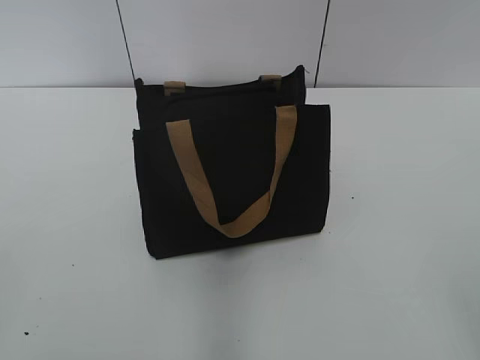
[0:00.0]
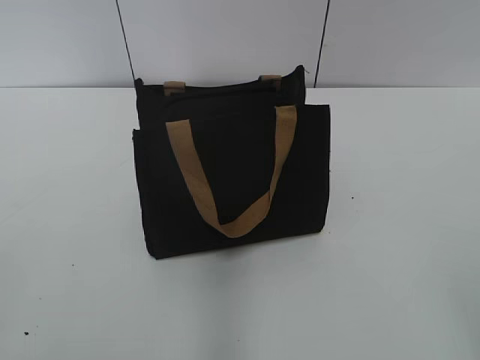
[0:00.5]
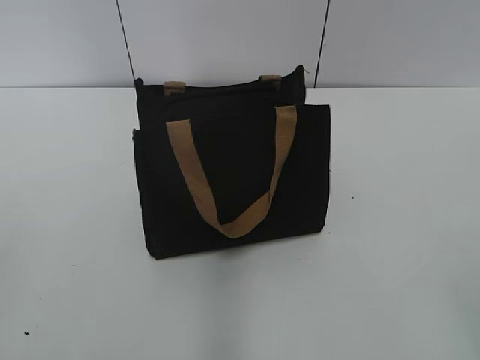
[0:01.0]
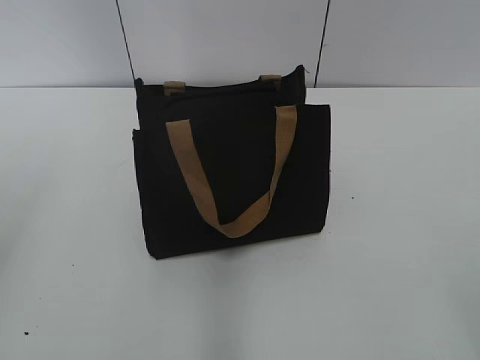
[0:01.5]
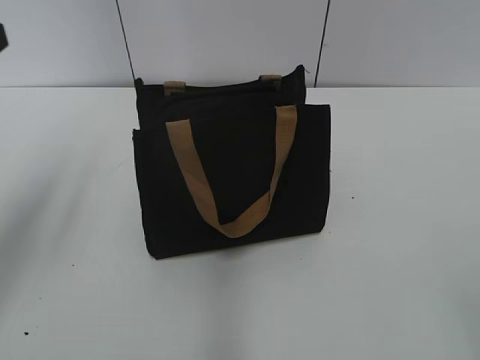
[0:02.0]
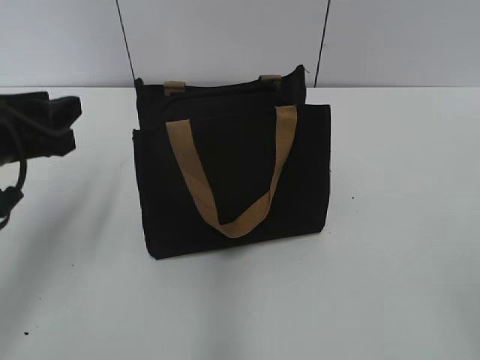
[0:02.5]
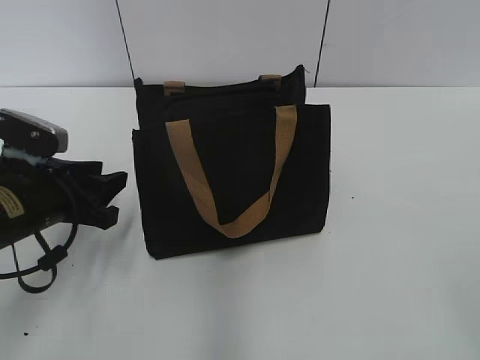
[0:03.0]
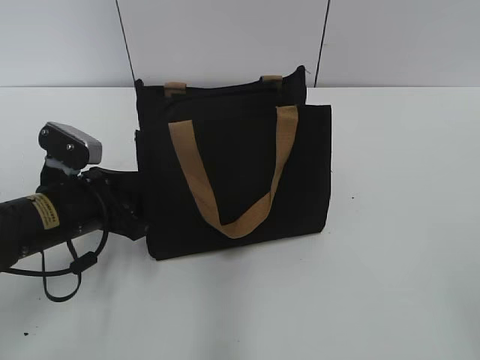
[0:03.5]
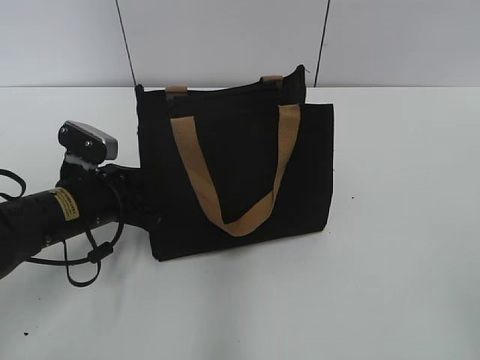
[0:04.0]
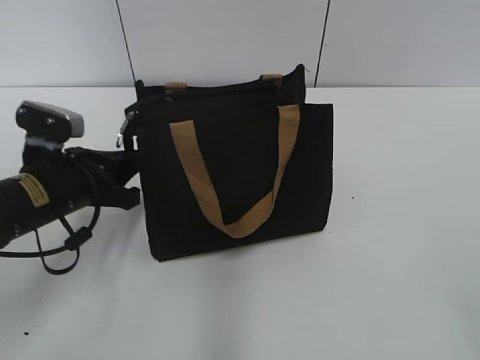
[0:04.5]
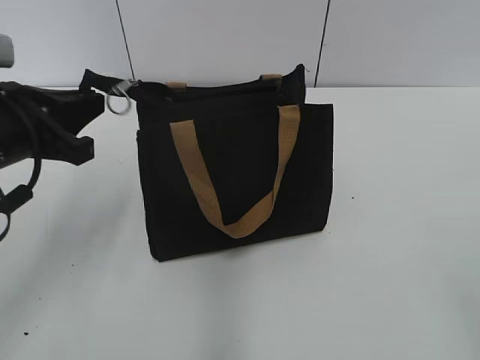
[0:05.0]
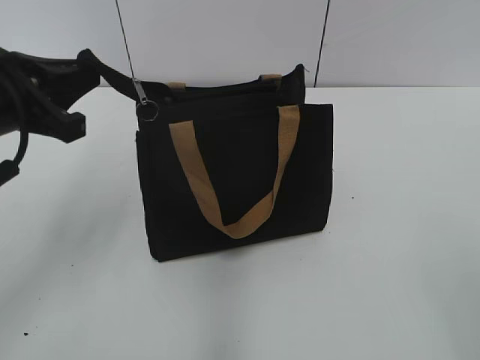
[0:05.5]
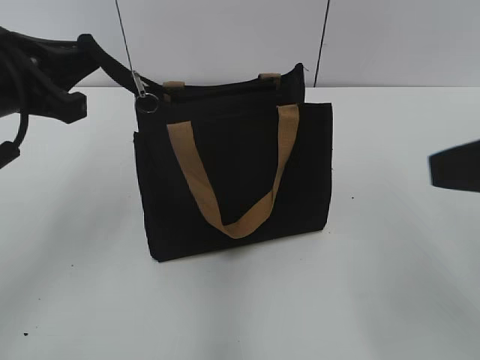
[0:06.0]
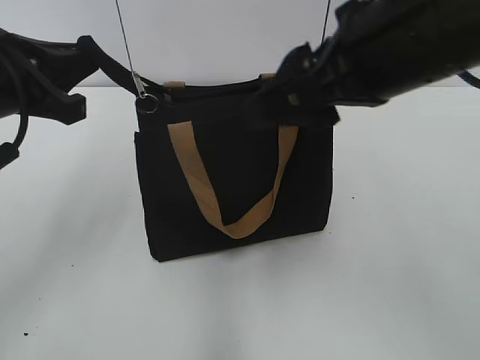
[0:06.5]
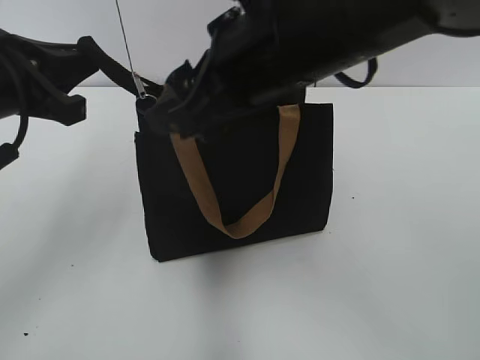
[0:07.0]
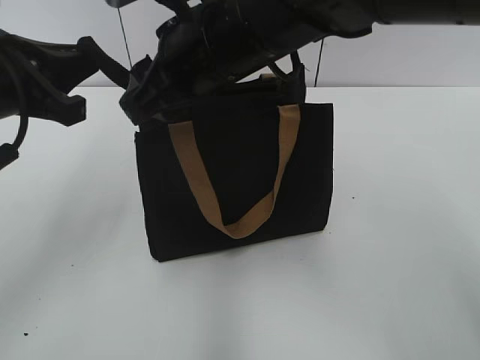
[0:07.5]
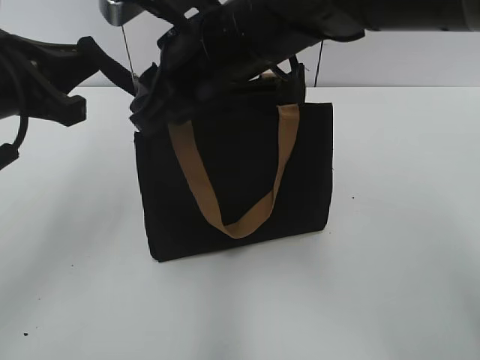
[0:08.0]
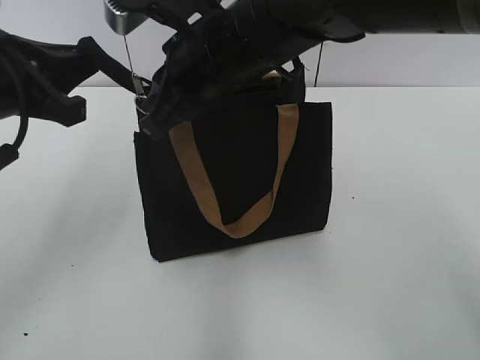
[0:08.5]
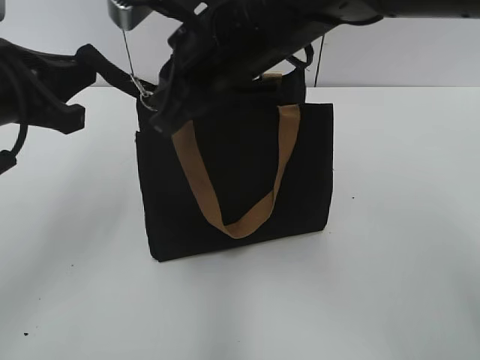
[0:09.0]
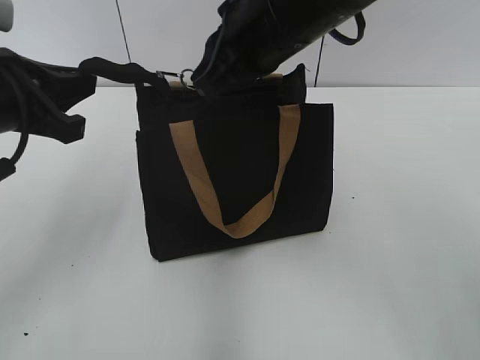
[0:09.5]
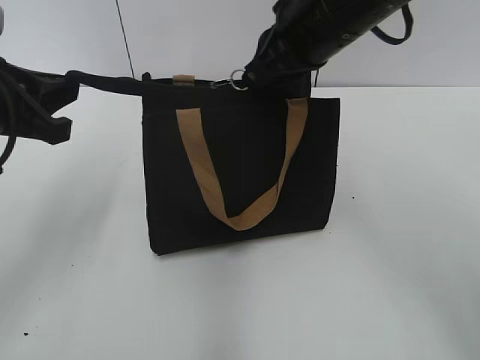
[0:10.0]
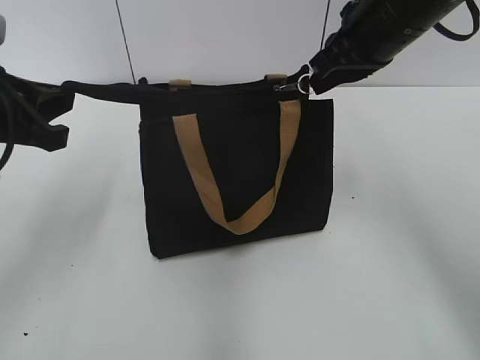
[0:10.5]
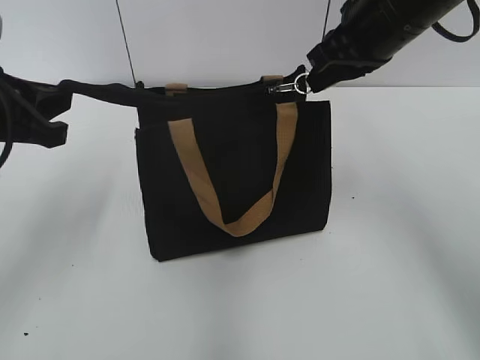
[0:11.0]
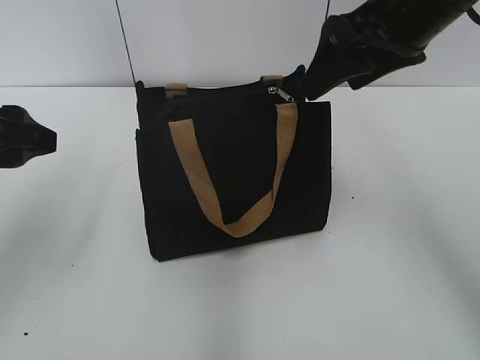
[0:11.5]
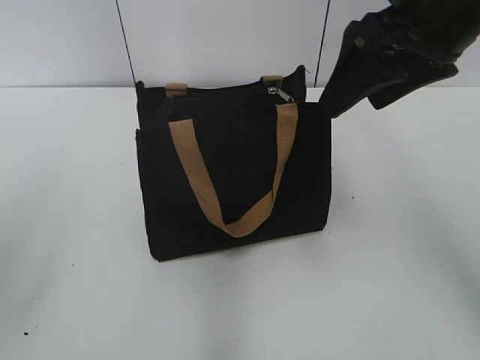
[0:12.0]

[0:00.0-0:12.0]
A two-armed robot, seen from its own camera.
Step, 0:00.0 to 0:11.0: Zip up the bag with your right hand.
0:02.0 to 0:04.0: The left gripper is displaced downward and to the right by about 20 cm.
0:04.0 to 0:06.0: The right gripper moves forward, about 15 cm; the left gripper goes approximately 20 cm upward, and closes up.
0:06.0 to 0:08.0: The right gripper is displaced to the left and forward by some 30 cm, and closes its fingers.
0:08.0 to 0:10.0: The right gripper shifts some 10 cm to the right, and closes.
0:10.0 to 0:12.0: The left gripper goes roughly 10 cm backward, and opens up. The right gripper heads to the right, covering approximately 5 cm, and opens.

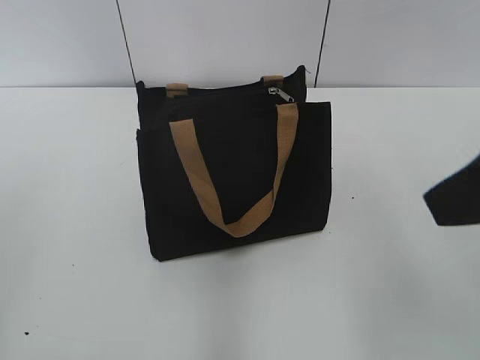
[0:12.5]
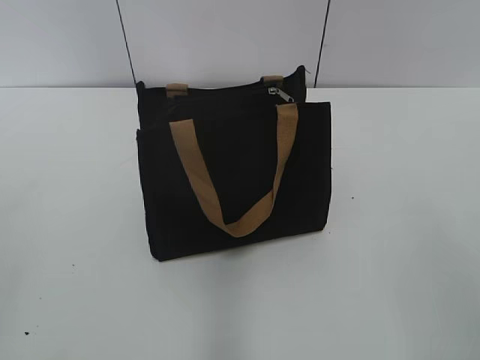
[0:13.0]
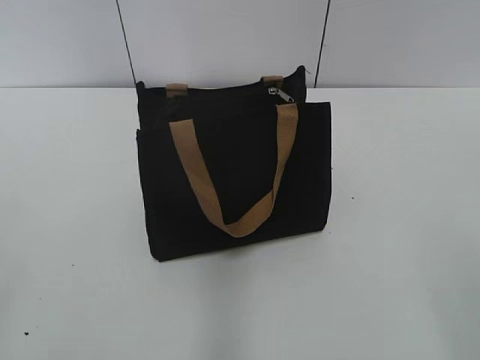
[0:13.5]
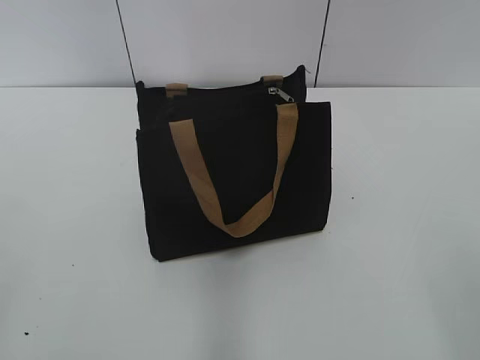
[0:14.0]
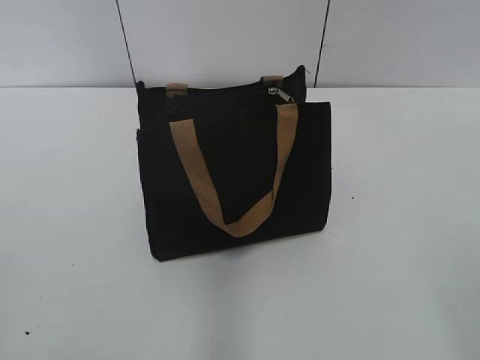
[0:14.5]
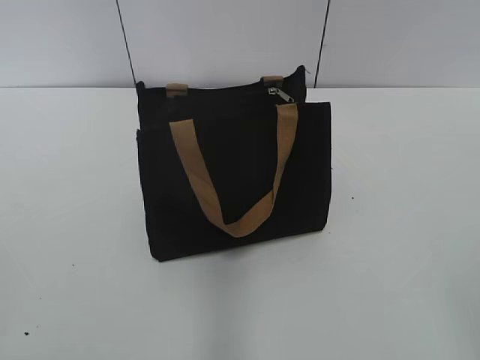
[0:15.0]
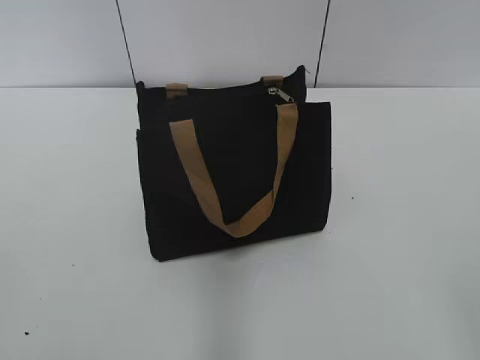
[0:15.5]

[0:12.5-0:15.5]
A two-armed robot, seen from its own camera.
0:12.5 to 0:14.0: The right gripper moves backward, to the right and downward, about 20 cm.

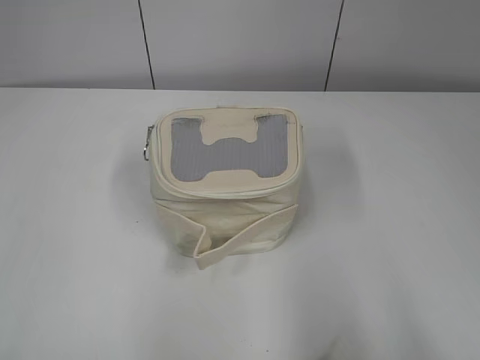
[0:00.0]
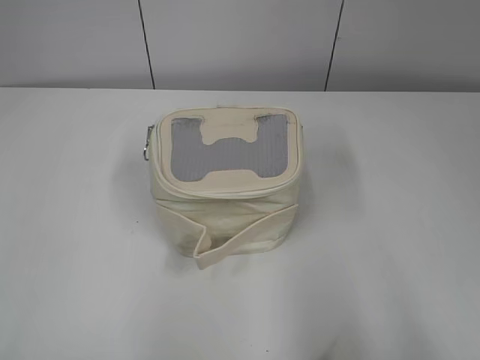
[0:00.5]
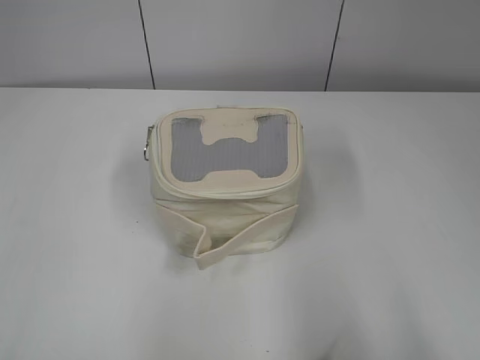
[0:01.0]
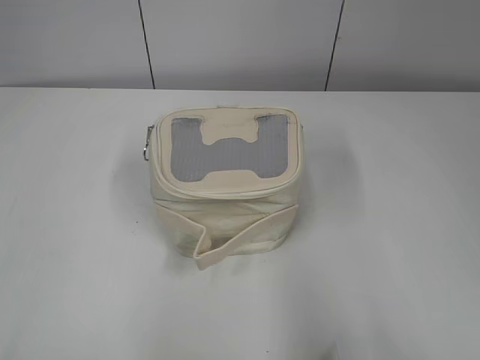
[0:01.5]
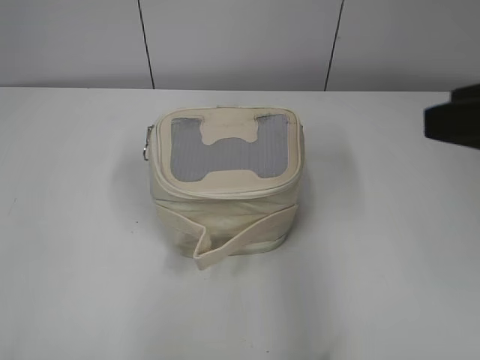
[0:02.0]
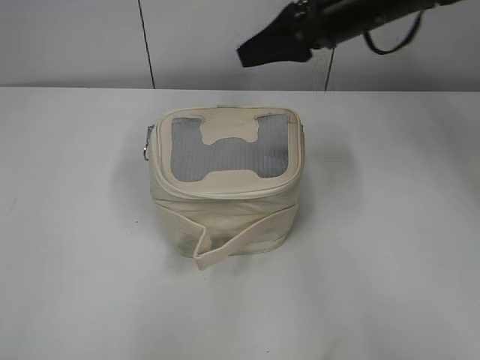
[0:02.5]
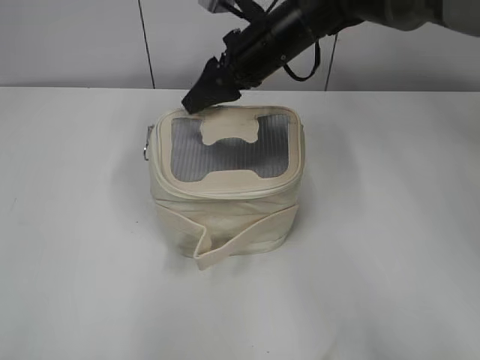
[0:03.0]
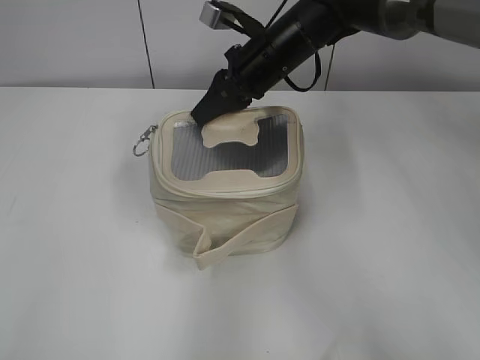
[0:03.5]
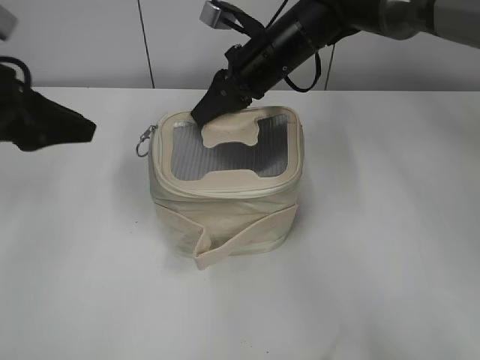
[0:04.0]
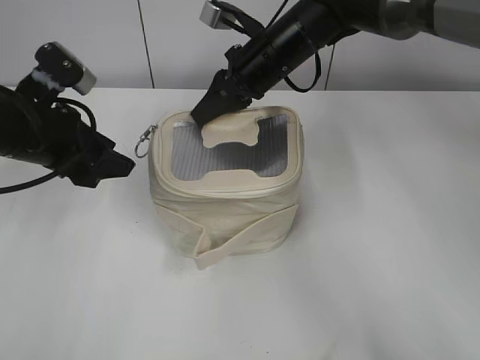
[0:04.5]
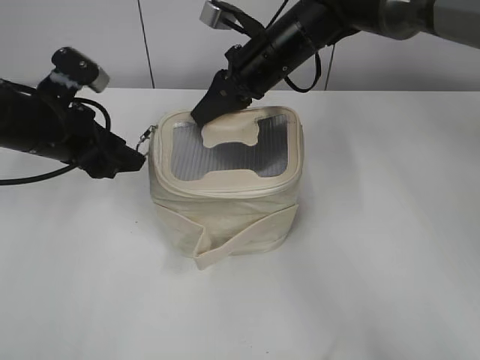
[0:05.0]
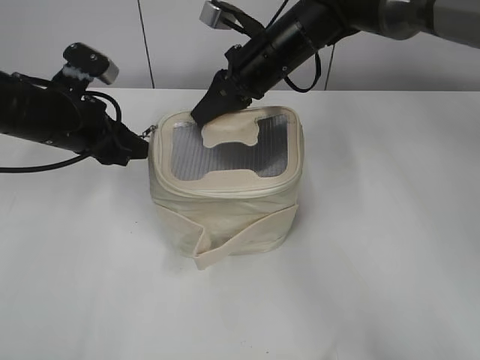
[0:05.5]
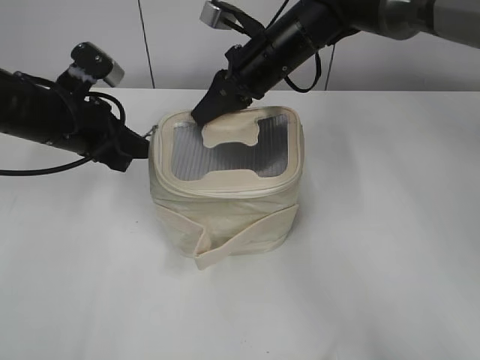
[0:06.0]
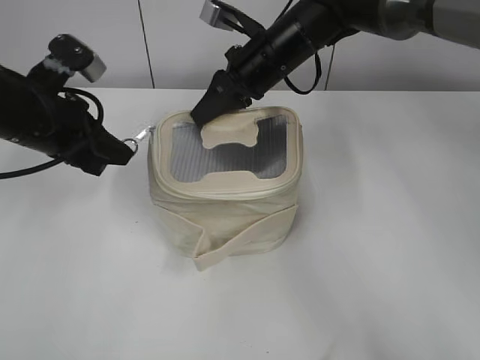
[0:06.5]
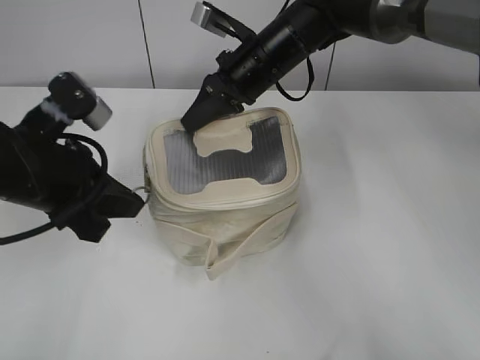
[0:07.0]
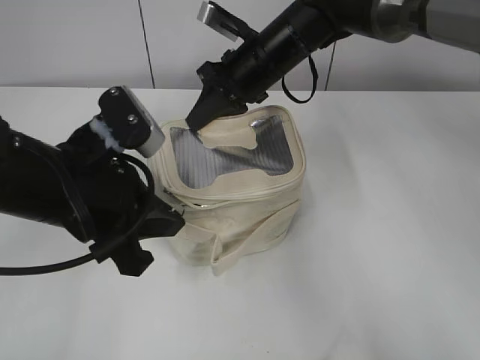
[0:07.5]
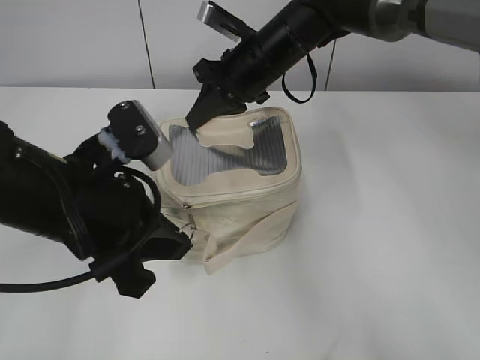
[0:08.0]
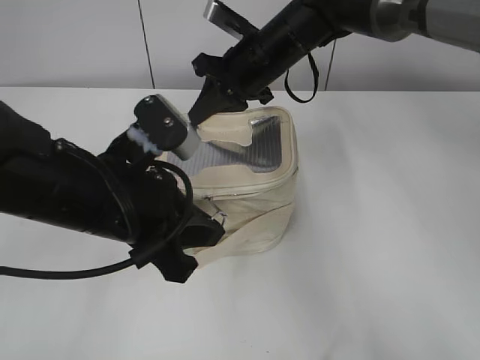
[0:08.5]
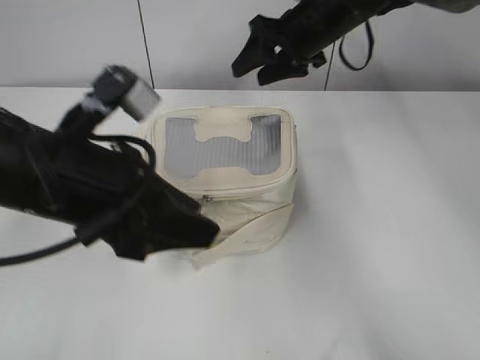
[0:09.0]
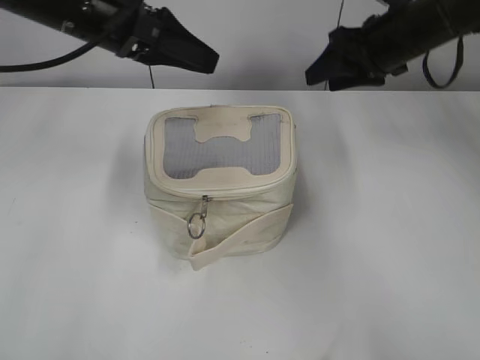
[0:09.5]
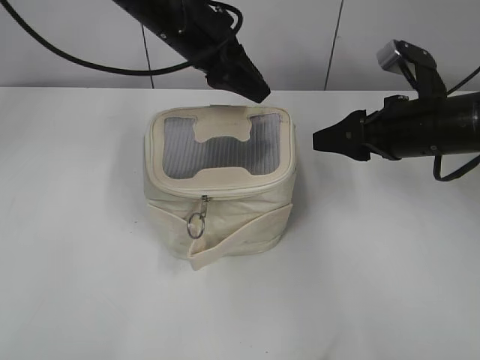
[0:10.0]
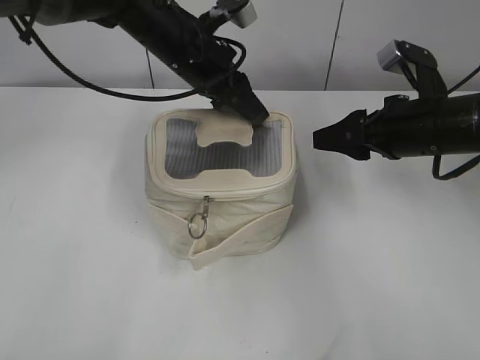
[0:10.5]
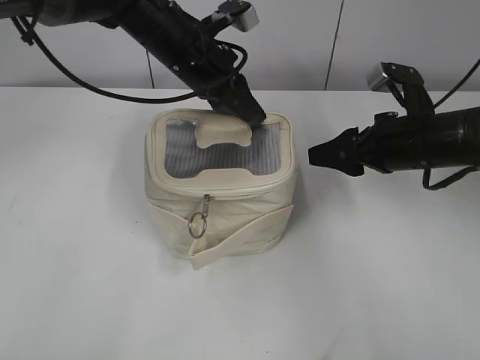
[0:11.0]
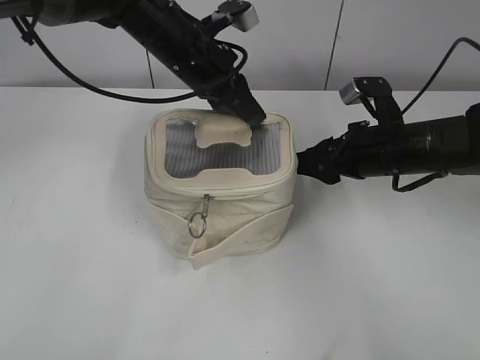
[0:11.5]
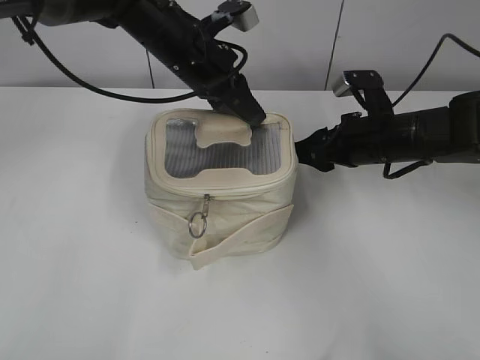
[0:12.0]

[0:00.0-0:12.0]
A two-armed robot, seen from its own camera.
Step, 0:00.0 to 0:08.5: Zip up the bag with your left hand.
0:02.0 to 0:04.0: The left gripper is displaced forward by about 30 cm. The right gripper heads forward, to the left and downward, covering about 35 cm, and closes.
0:04.0 to 0:06.0: The left gripper heads downward, forward and to the right, covering about 10 cm, and closes up.
0:06.0 to 0:08.0: The left gripper shifts some 15 cm backward and to the right.
0:08.0 to 0:10.0: The left gripper travels forward by some 20 cm, and opens its fingers, while the right gripper is displaced to the right and backward by some 20 cm, and opens its fingers.
0:10.0 to 0:12.0: The right gripper is displaced downward by roughly 5 cm, while the left gripper closes up.
